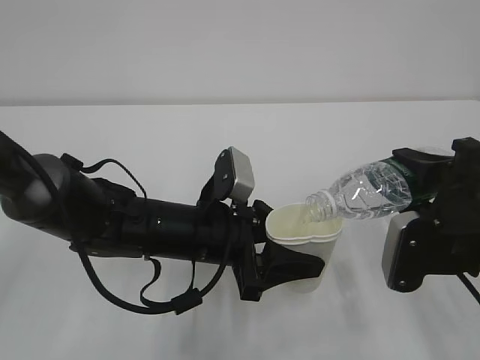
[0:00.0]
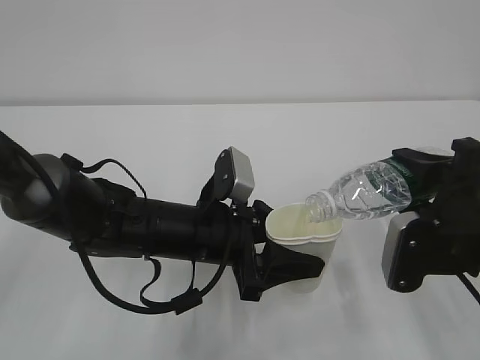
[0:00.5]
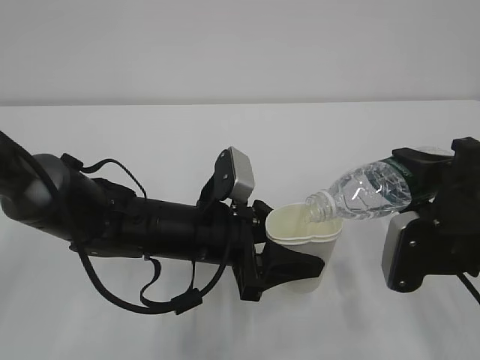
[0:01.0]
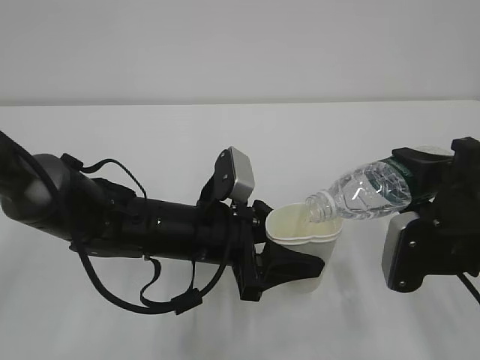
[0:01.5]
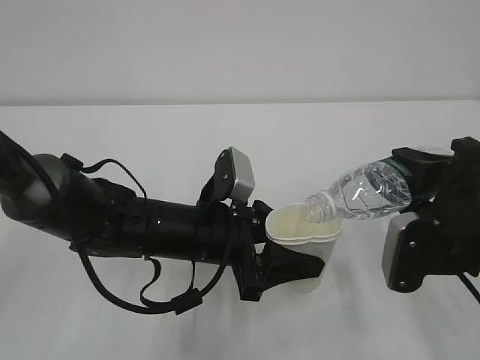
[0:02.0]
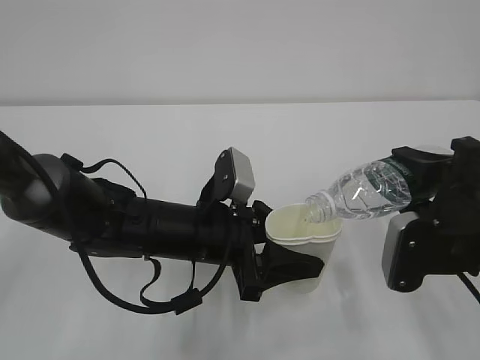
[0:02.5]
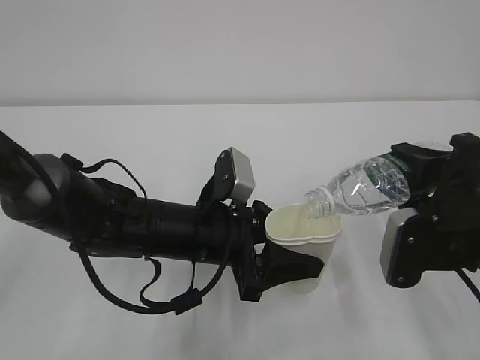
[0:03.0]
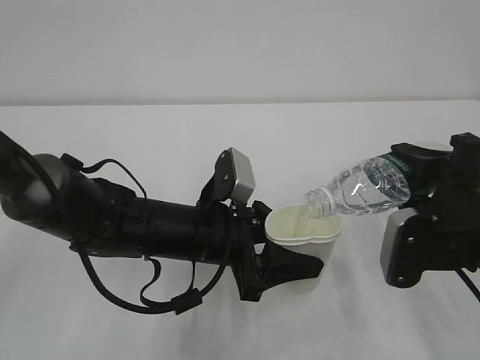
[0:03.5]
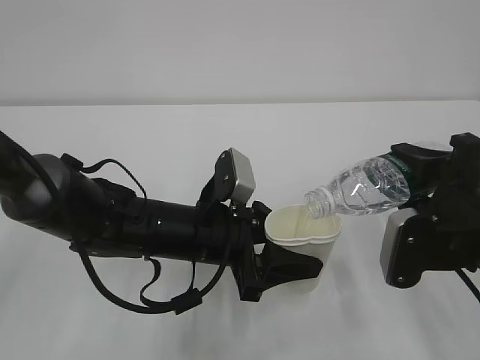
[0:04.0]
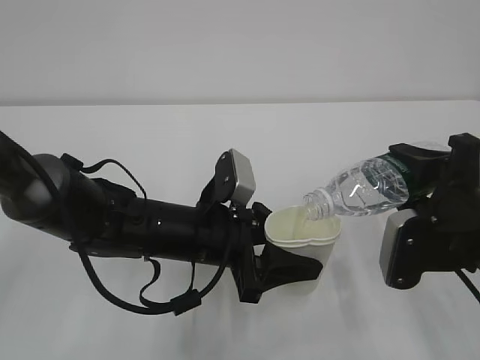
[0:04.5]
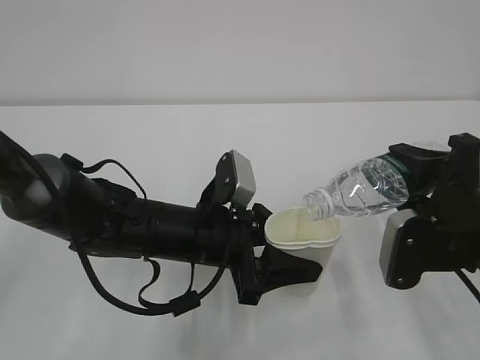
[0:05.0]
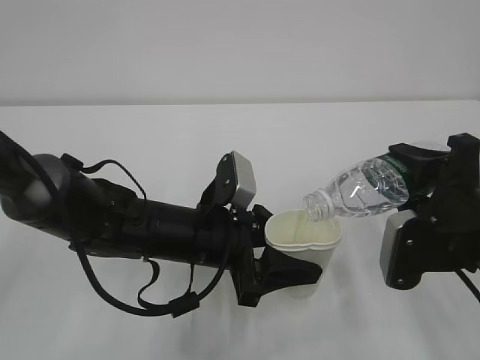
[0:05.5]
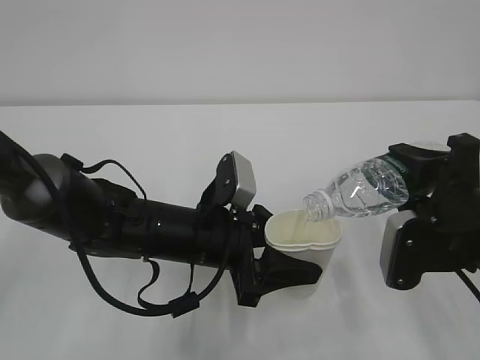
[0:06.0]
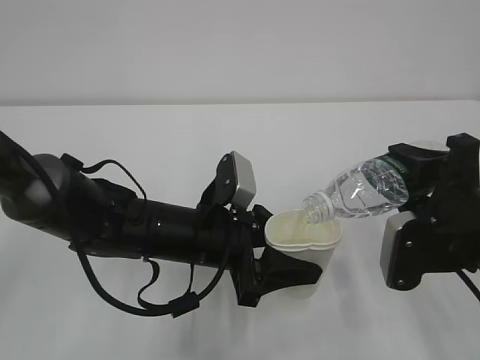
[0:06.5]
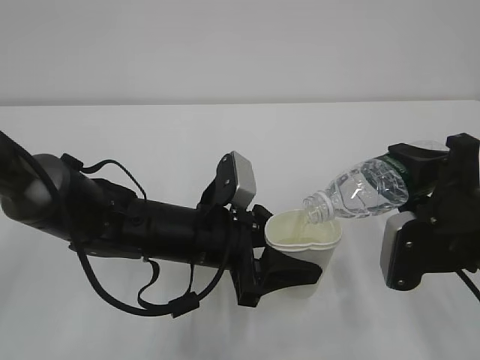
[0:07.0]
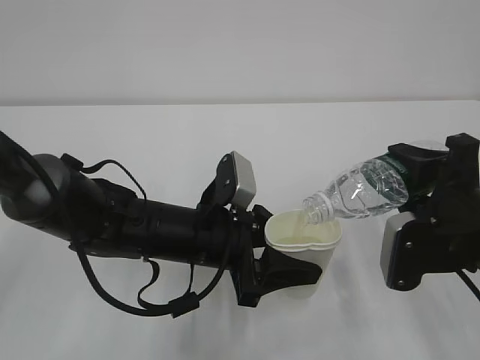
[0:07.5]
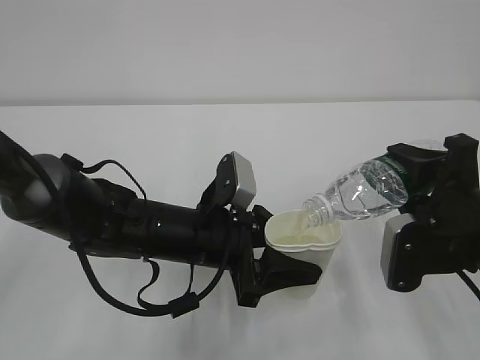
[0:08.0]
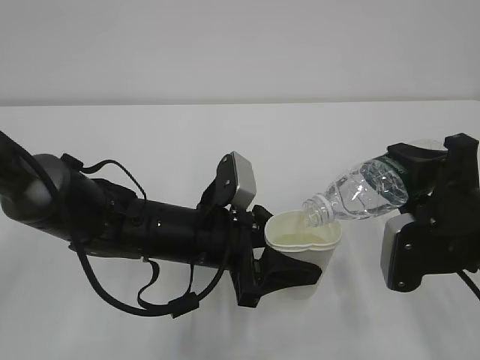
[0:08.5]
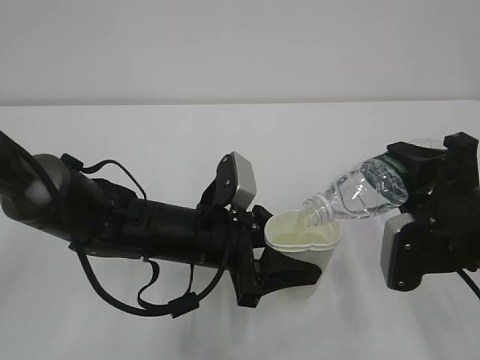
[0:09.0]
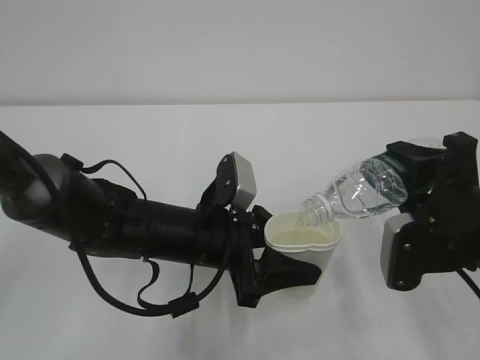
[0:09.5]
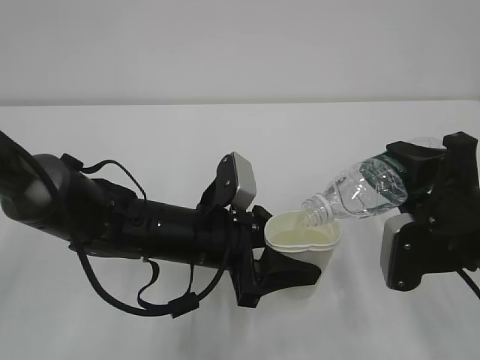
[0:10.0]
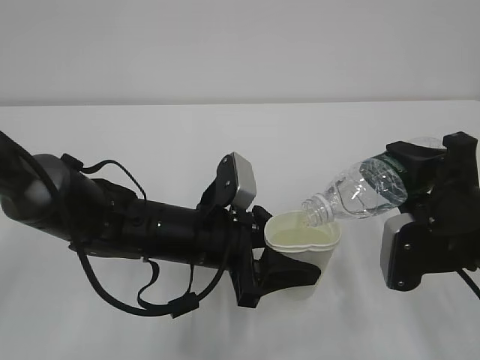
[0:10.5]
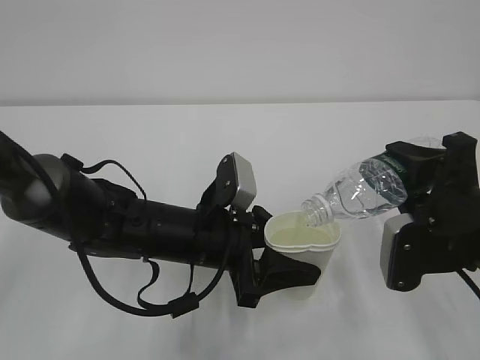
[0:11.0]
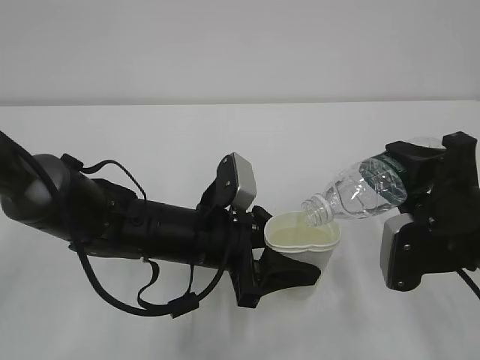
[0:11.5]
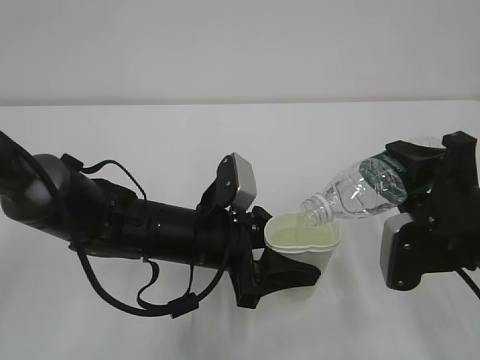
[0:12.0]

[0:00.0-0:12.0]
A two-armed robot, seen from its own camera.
0:00.0 to 0:06.0: Both grippers stay about where they are.
0:06.0 to 0:12.0: The two grippers keep their place.

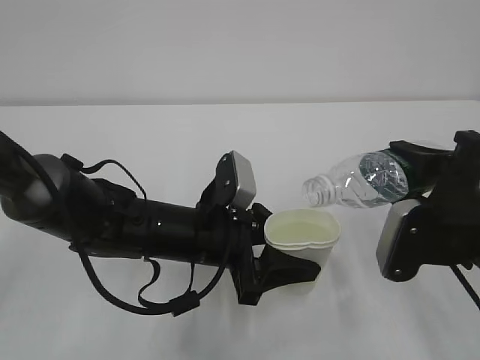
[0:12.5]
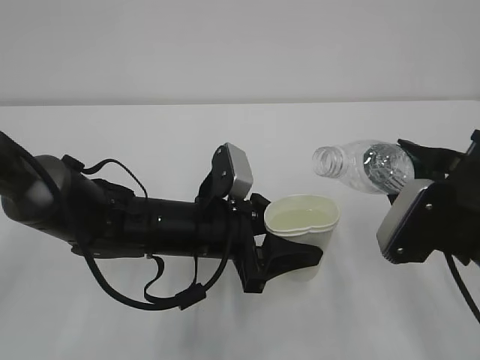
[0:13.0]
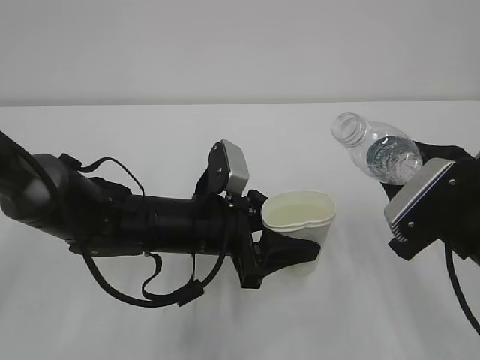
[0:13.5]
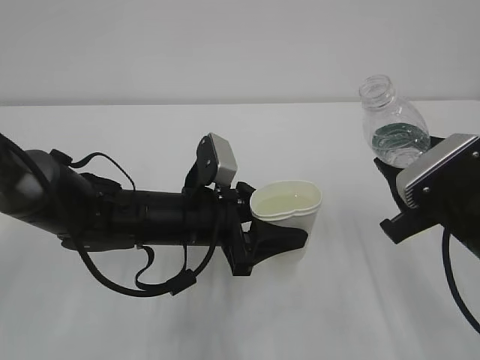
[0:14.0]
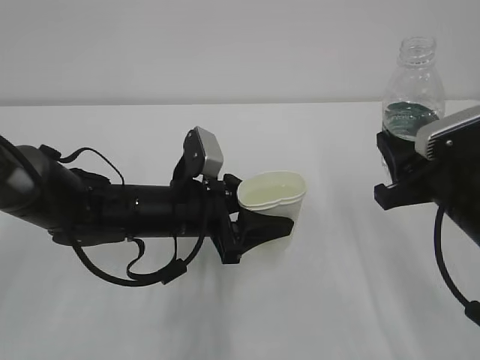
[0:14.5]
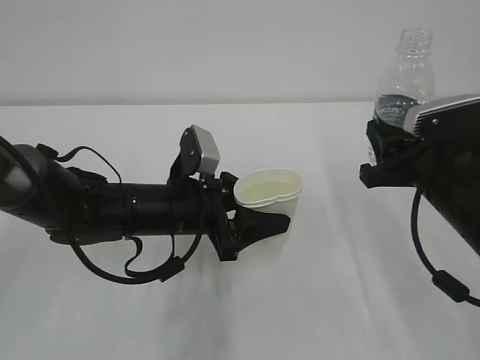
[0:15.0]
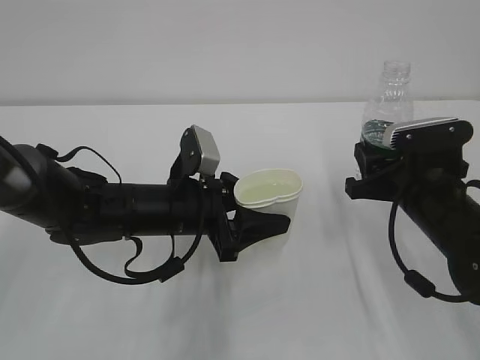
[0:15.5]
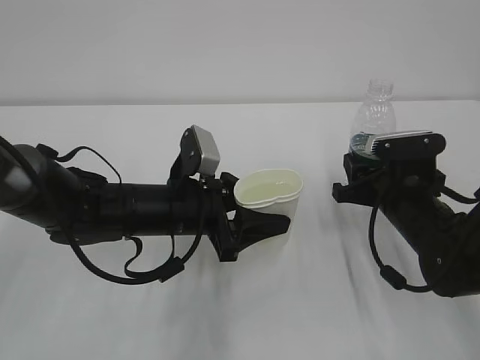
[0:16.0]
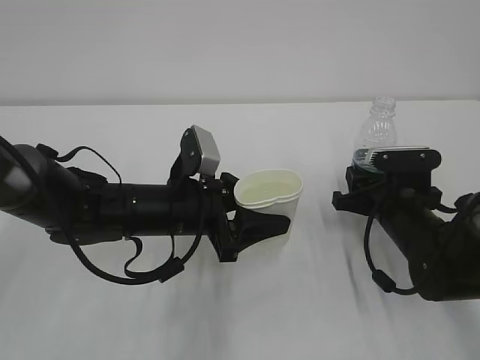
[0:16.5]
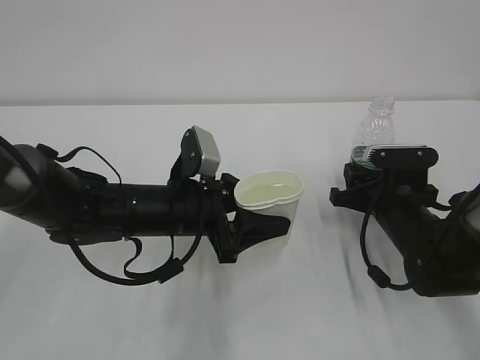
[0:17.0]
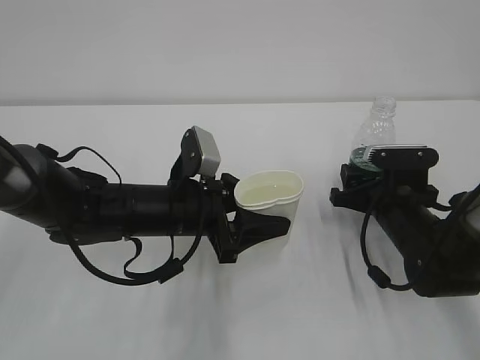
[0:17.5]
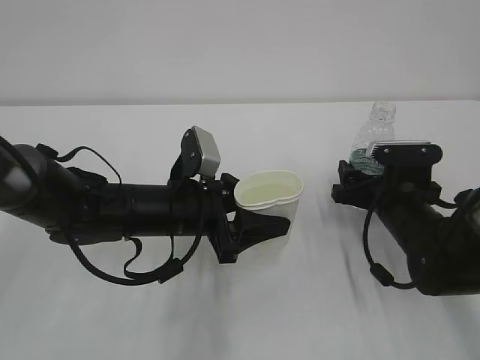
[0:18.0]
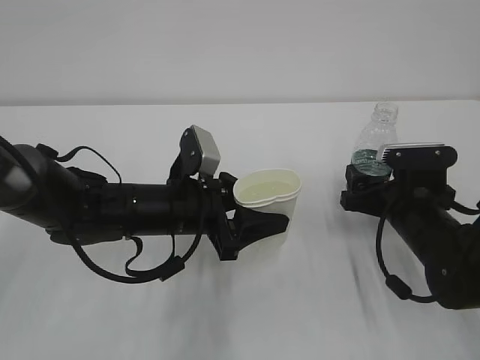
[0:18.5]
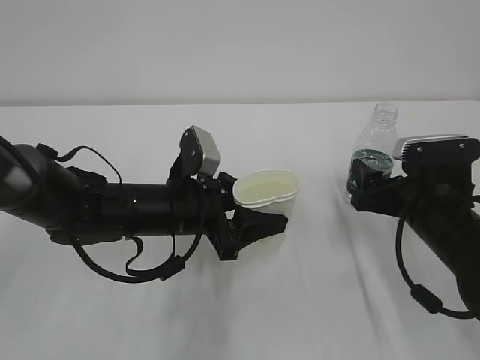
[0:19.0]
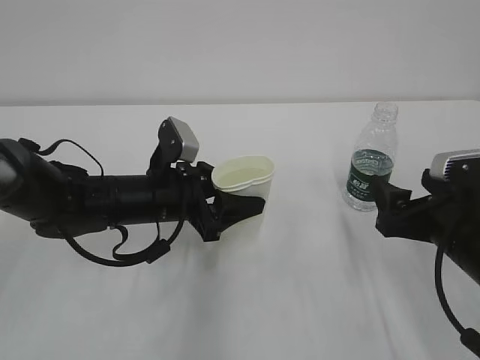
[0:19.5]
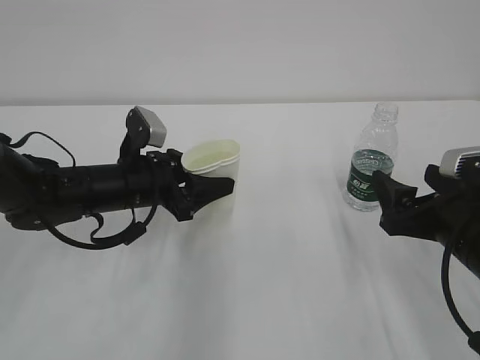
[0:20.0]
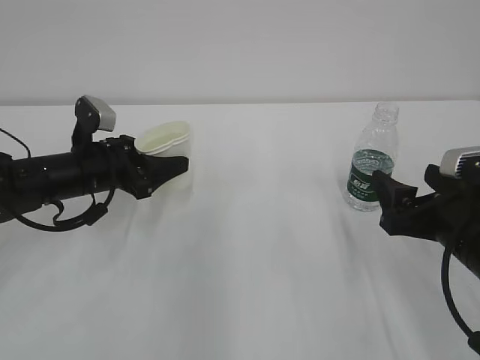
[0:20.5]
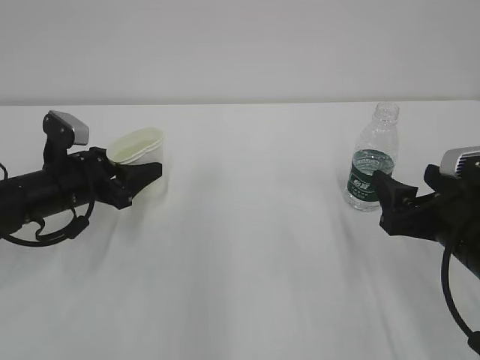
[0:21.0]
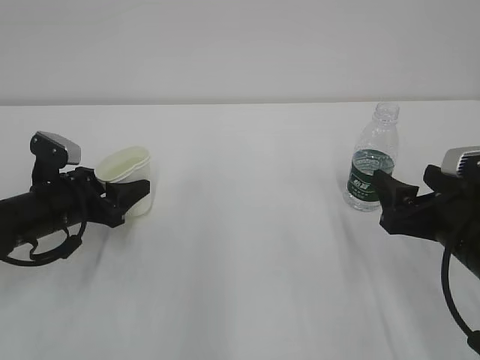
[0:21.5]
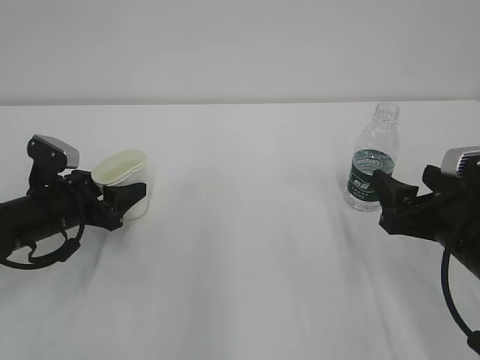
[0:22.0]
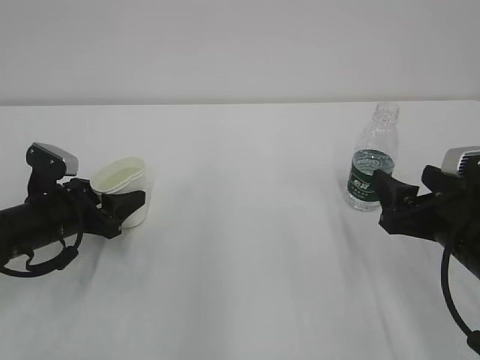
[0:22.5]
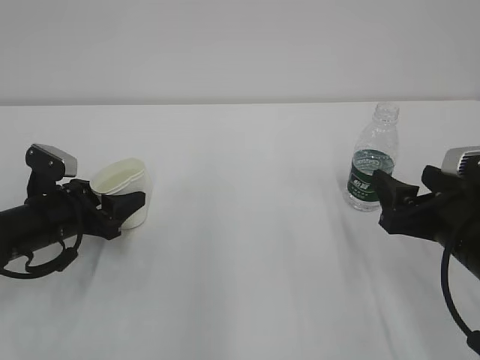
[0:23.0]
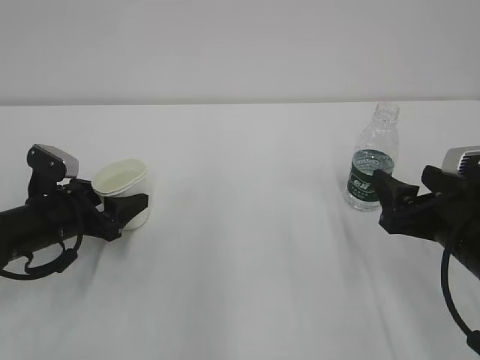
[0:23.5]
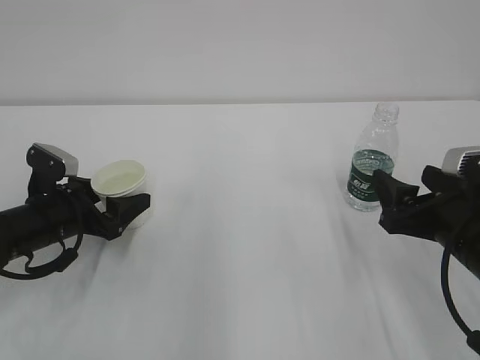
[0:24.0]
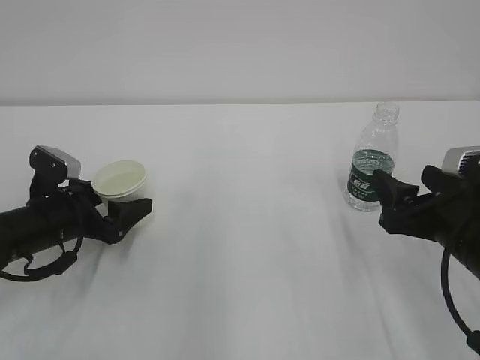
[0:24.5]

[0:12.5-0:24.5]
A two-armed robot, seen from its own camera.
0:14.5 to 0:16.5: The right gripper goes about 15 cm downward and forward.
0:16.5 to 0:18.5: The right gripper opens up.
0:18.5 to 0:20.5: The left gripper heads to the left and forward, covering roughly 15 cm. The right gripper shifts some 10 cm backward and upward.
0:20.5 to 0:22.5: The left gripper moves approximately 10 cm.
0:22.5 to 0:24.5: The left gripper opens its fingers.

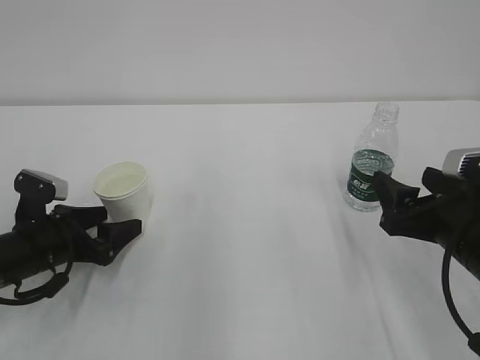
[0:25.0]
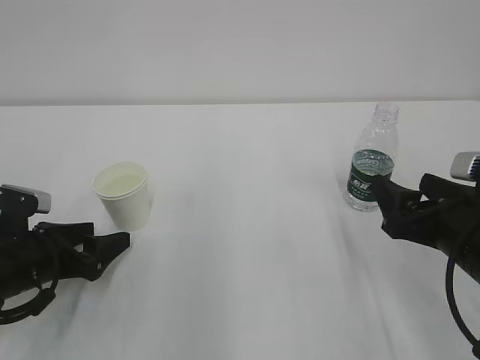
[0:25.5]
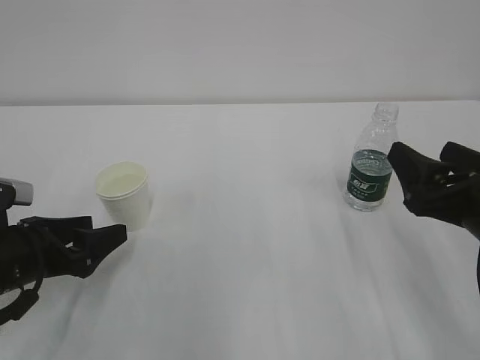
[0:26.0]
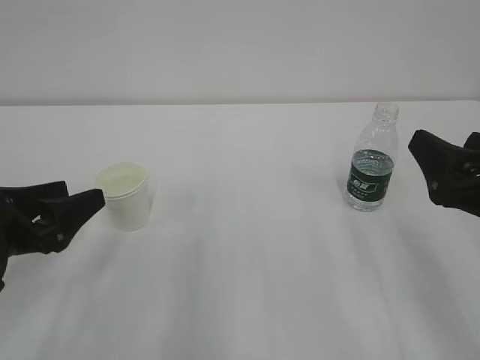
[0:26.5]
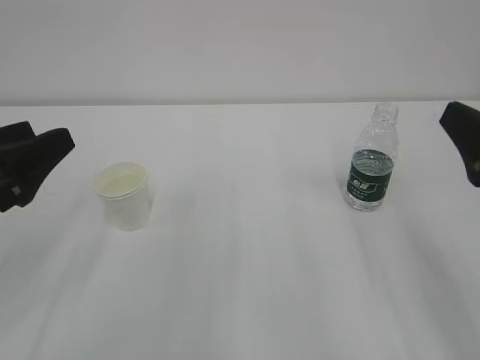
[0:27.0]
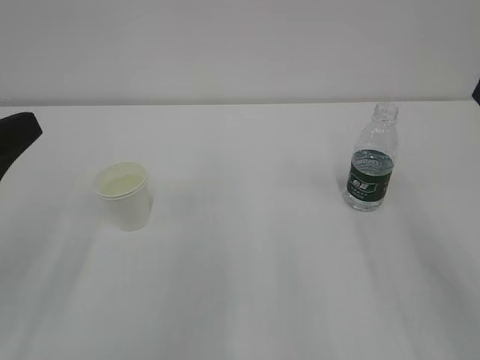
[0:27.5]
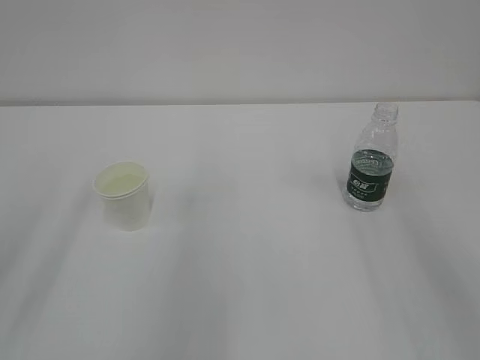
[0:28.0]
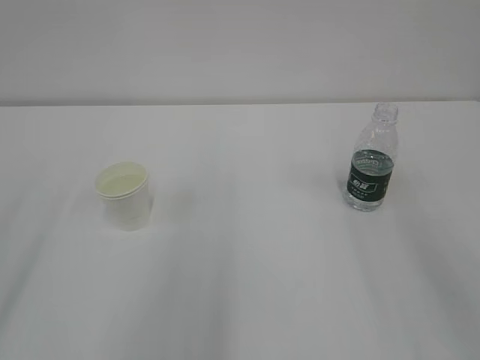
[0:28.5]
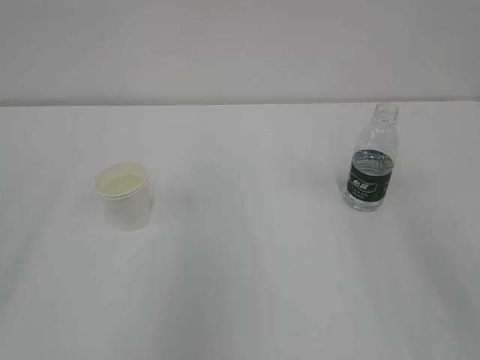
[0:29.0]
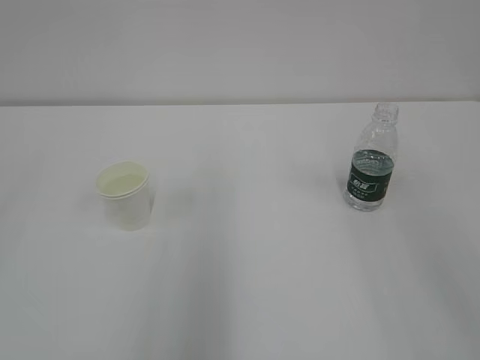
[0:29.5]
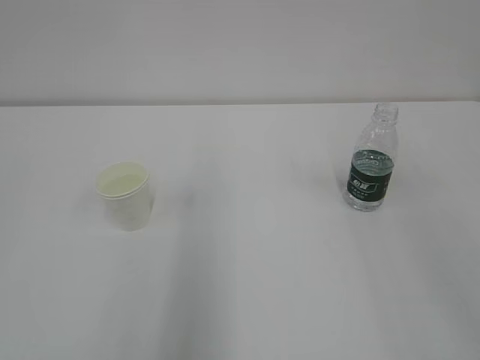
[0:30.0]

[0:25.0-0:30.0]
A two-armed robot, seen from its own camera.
0:25.0 to 0:27.5: The two grippers go about 20 cm upward and backward.
0:27.5 to 0:30.0: The left gripper is displaced backward, upward and to the left by some 20 cm.
